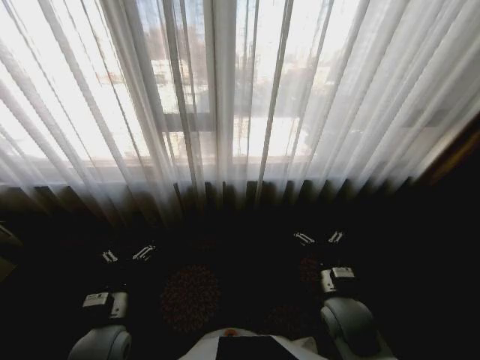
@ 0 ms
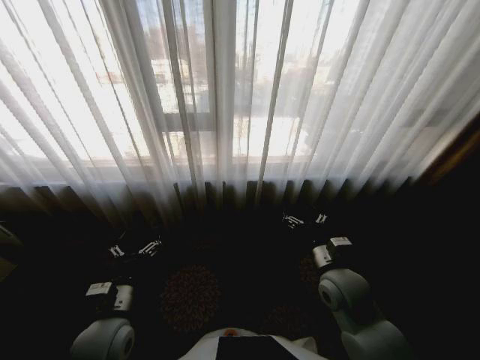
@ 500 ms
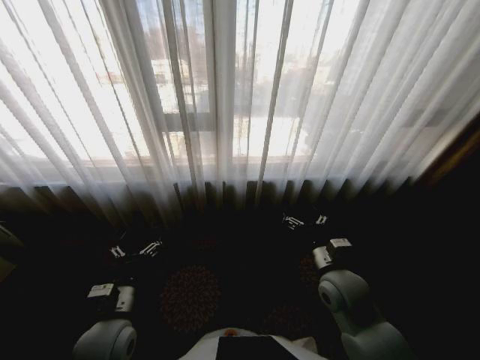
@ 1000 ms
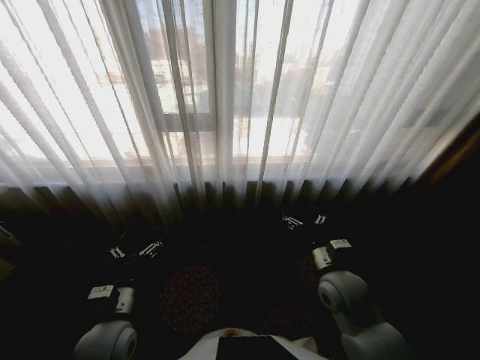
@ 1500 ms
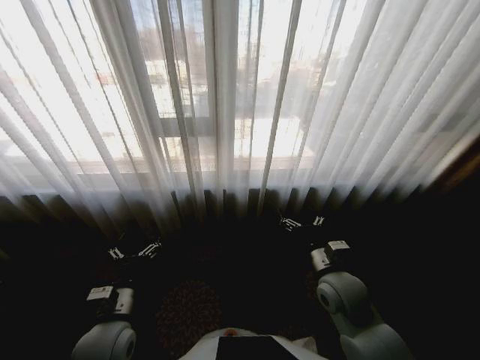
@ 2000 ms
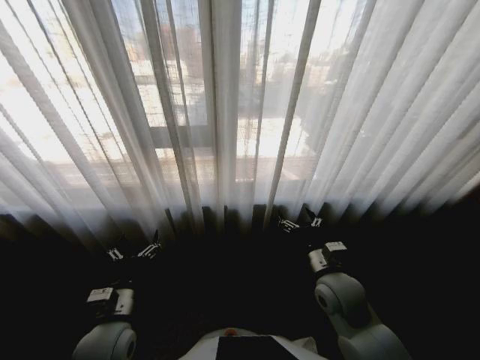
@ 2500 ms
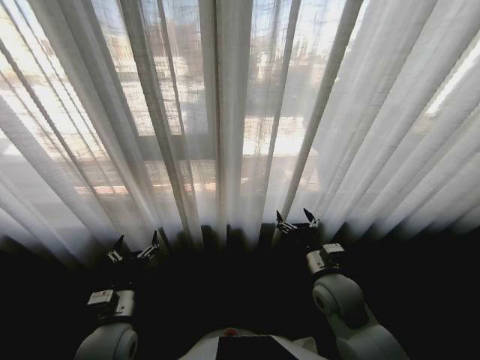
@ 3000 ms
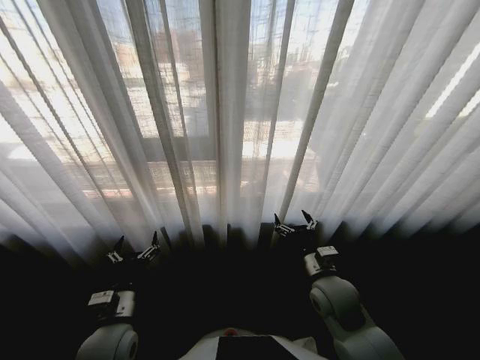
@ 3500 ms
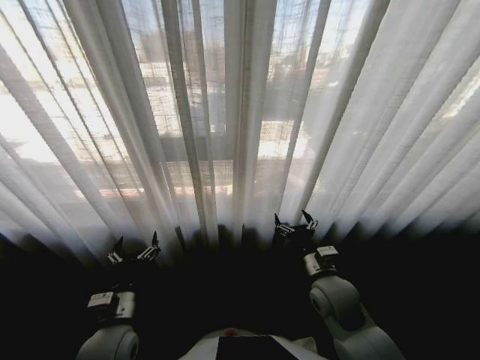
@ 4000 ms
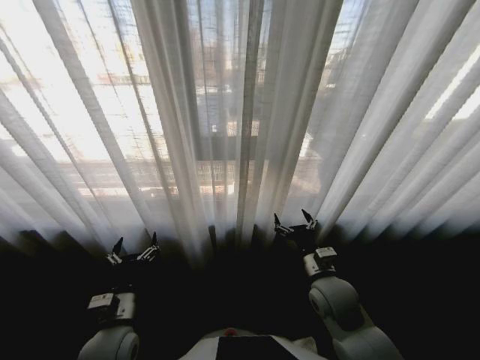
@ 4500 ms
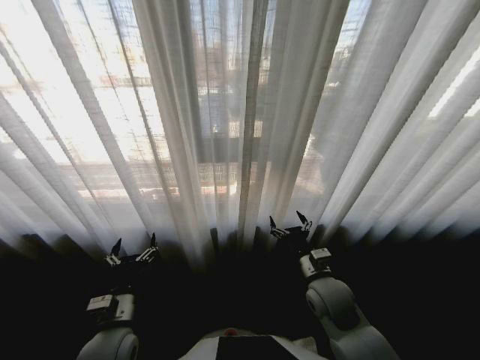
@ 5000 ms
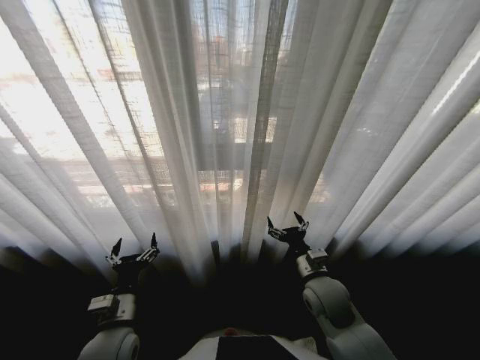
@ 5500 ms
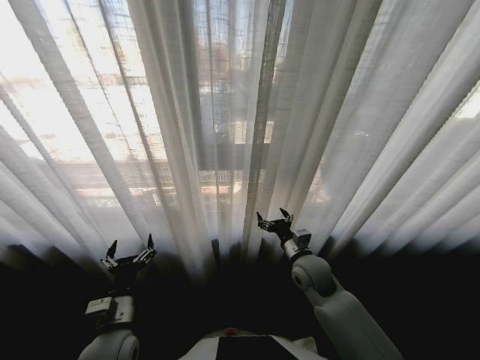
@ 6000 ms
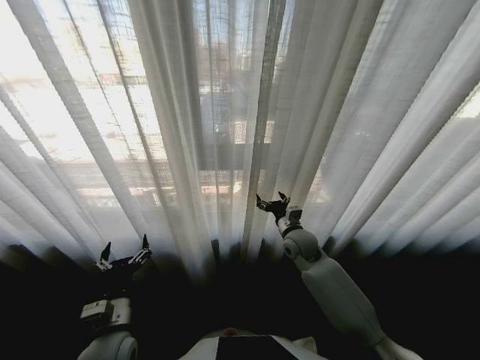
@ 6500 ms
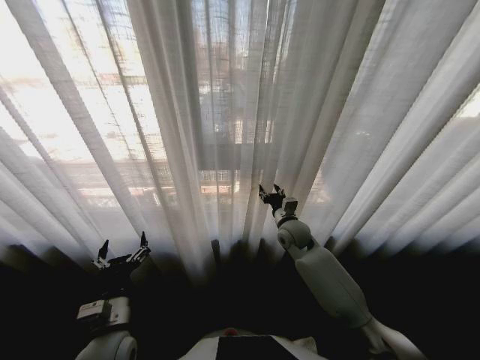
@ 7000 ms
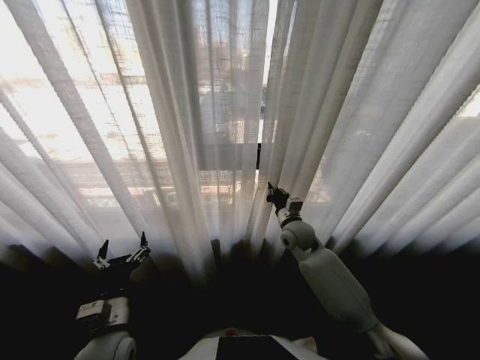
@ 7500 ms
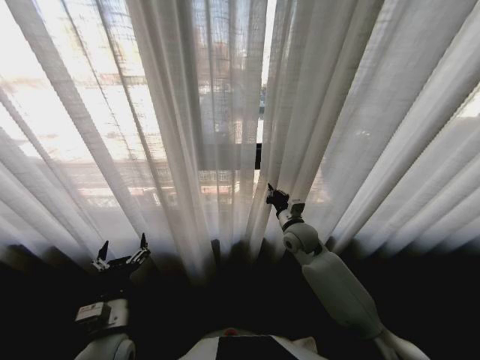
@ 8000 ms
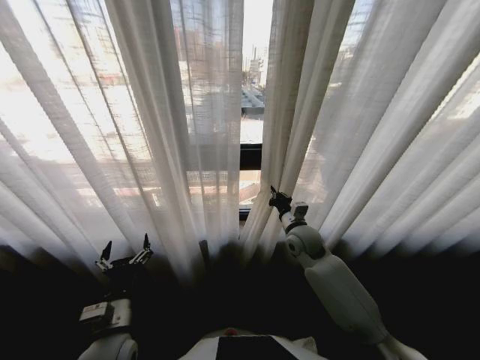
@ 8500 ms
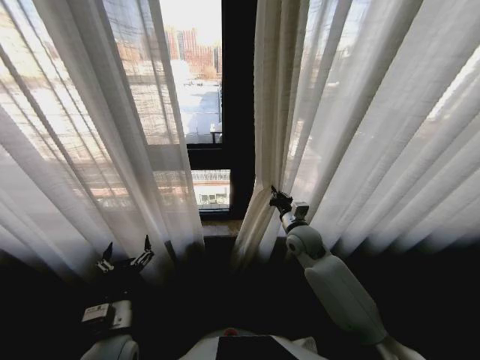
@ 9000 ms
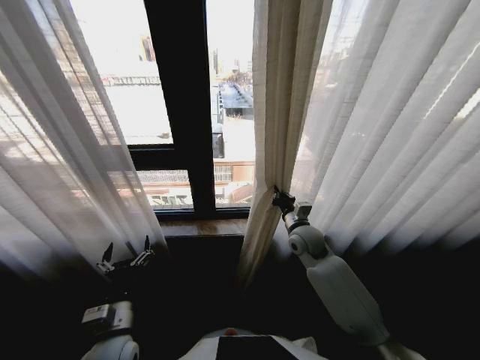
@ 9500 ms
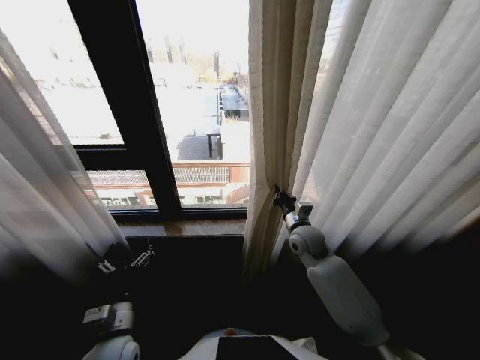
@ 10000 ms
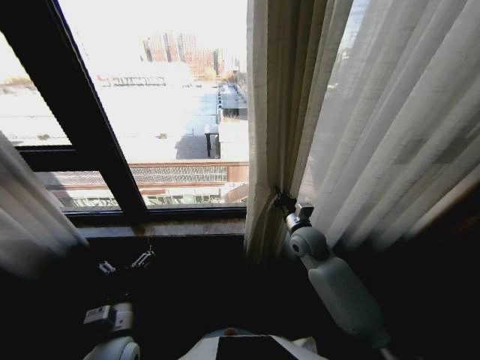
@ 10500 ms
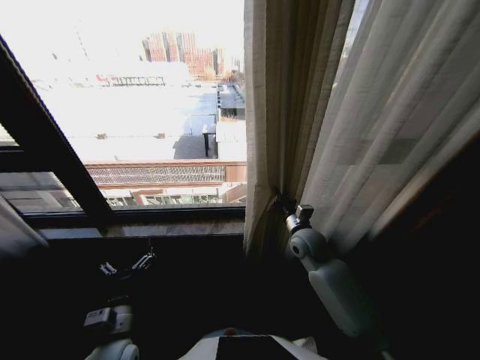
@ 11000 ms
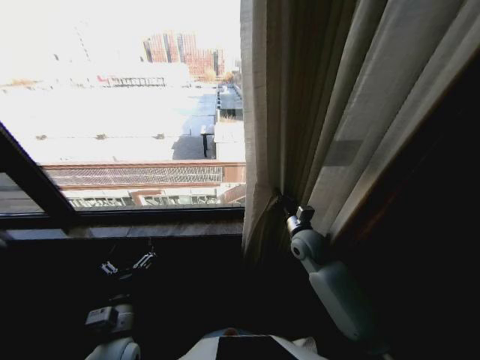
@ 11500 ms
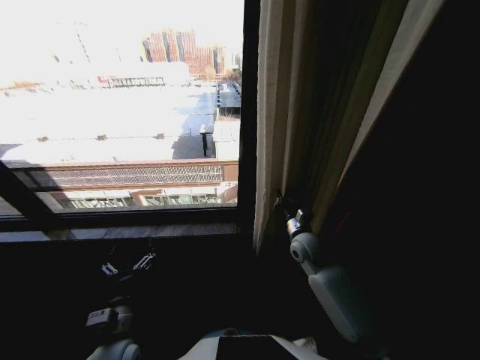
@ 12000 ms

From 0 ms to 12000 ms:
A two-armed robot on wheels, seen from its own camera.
Task of the whole recording: Open the curtains by pulling them apart, changing their state from closed to fully open.
From 4000 ms to 6000 ms: The right gripper shifts about 5 cm forward.
From 6000 ms to 8000 ms: The right gripper is displaced forward by some 10 cm, and closes.

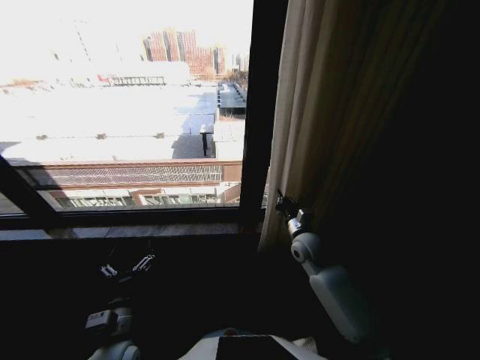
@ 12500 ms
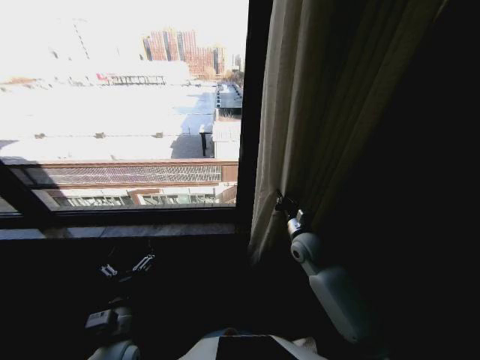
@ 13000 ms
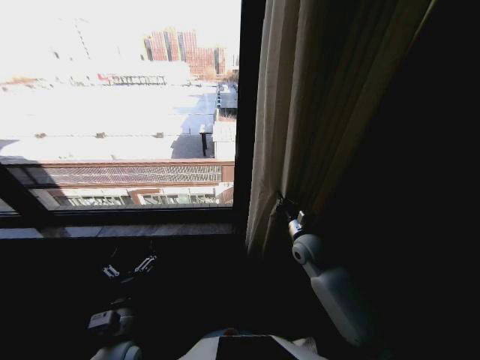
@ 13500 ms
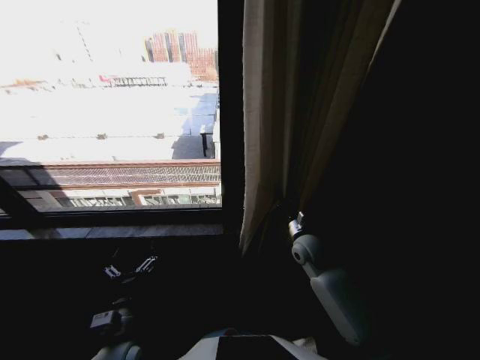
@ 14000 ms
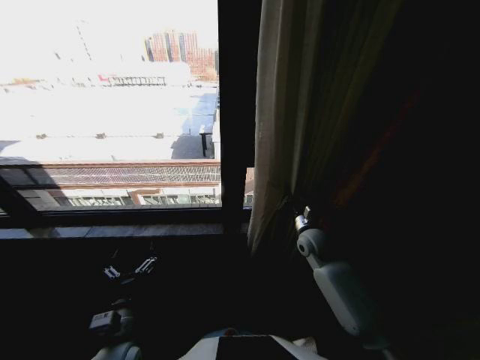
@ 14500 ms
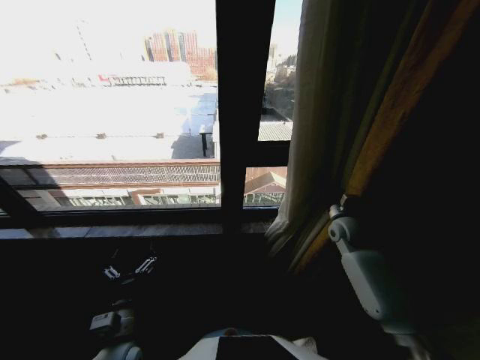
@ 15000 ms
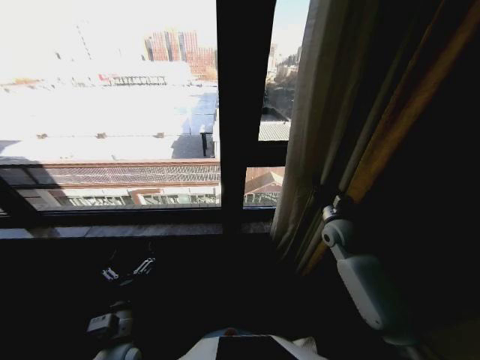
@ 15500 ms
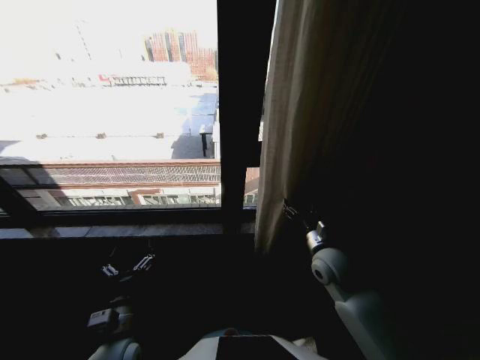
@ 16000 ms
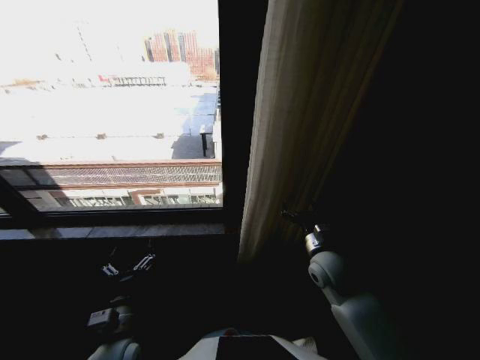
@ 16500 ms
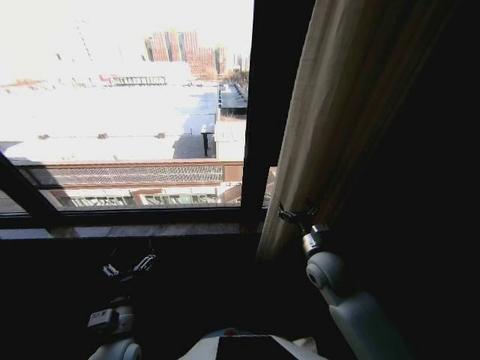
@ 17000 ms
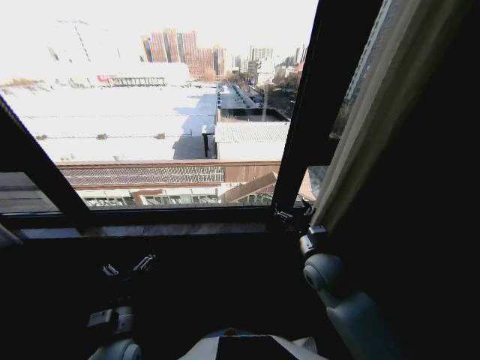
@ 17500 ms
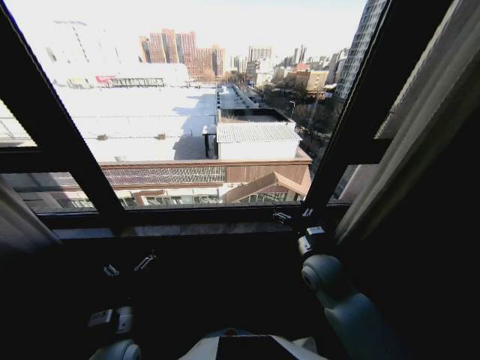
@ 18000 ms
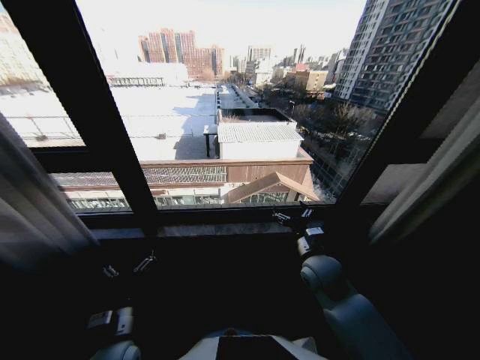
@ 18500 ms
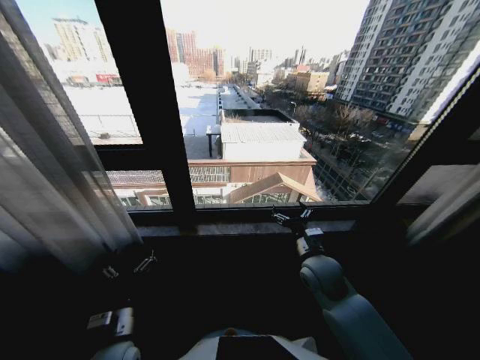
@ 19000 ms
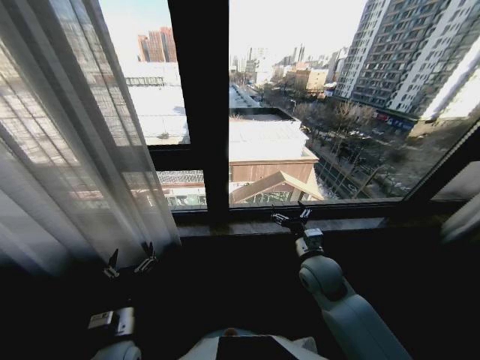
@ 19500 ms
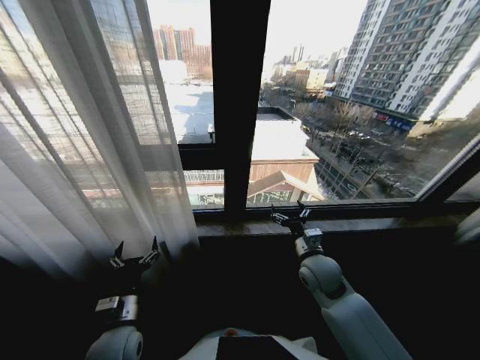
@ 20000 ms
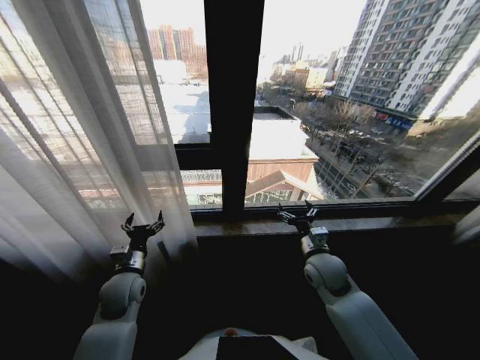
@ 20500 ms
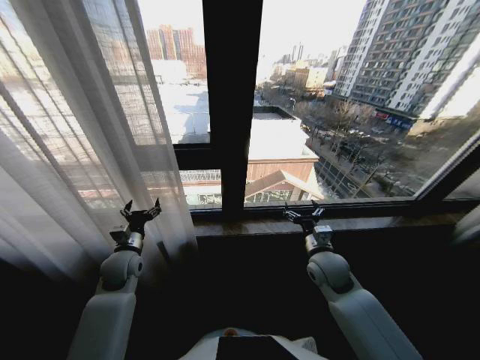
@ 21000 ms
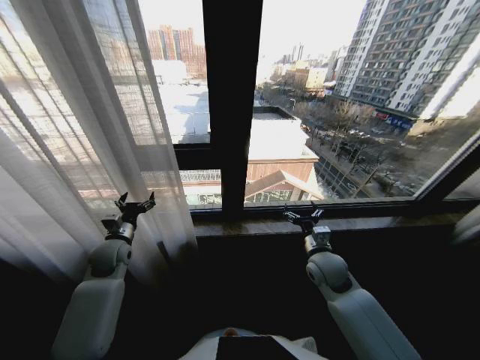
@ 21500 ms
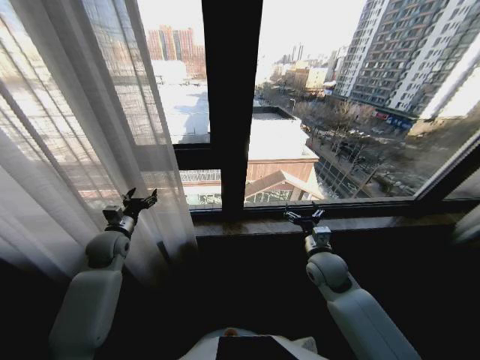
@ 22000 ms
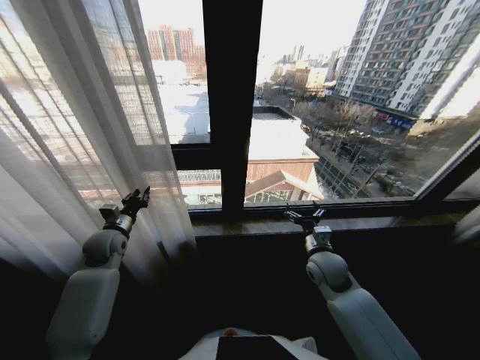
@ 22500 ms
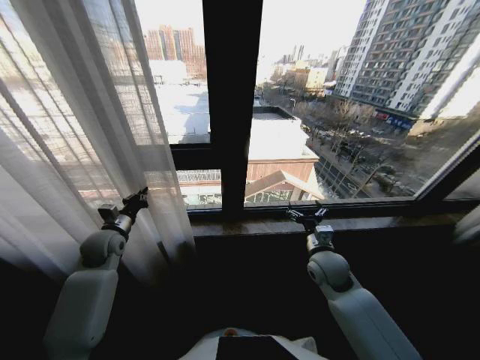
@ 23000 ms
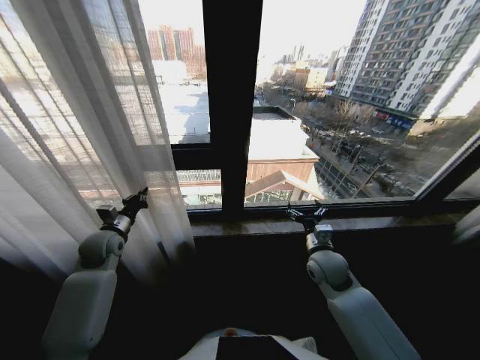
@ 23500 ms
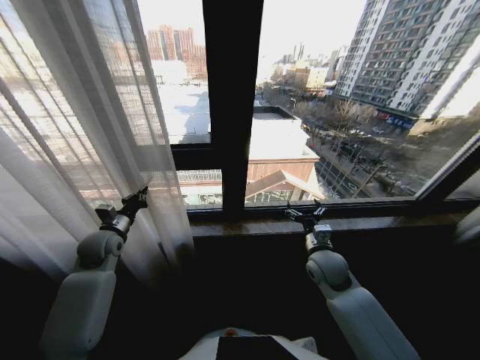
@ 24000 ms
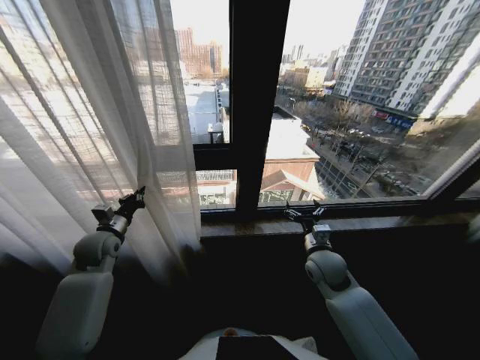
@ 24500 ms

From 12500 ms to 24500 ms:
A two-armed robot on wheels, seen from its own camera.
Task of the whole recording: Open the curtains by pulling them apart, changing their state from closed to fully open.
From 12500 ms to 14500 ms: The grippers stay close to where they were, moving slightly.
From 14500 ms to 16500 ms: The right gripper shifts roughly 10 cm backward, and opens.
From 18500 ms to 20500 ms: The left gripper goes some 15 cm forward.
From 20500 ms to 22500 ms: The left gripper shifts about 15 cm forward and to the left, and closes up.

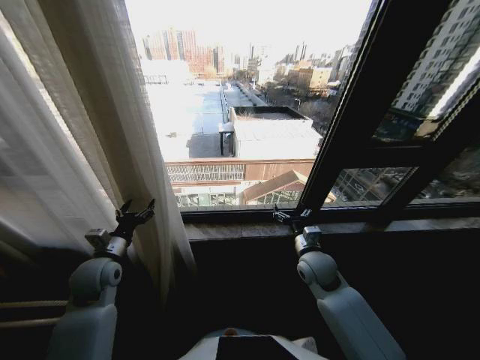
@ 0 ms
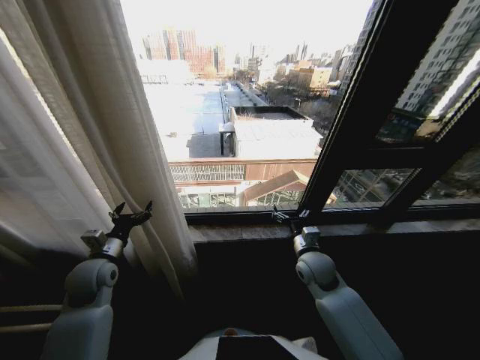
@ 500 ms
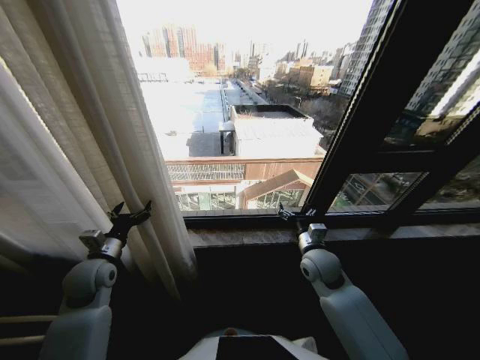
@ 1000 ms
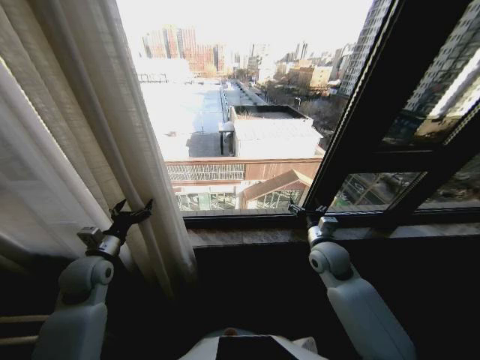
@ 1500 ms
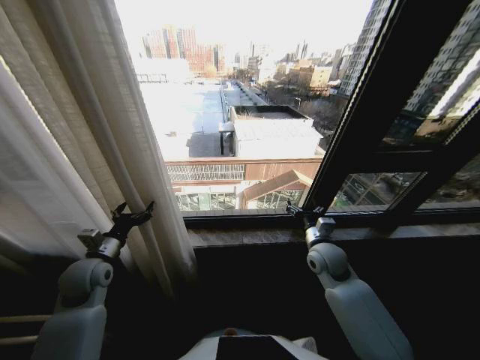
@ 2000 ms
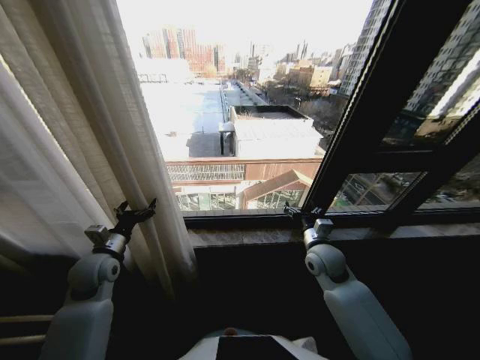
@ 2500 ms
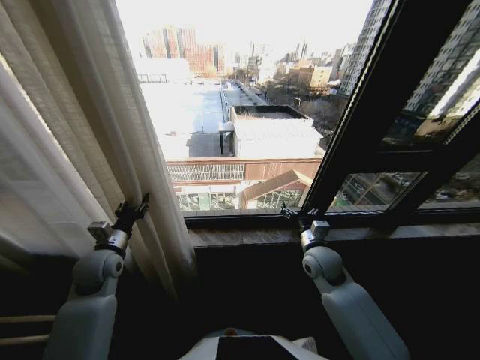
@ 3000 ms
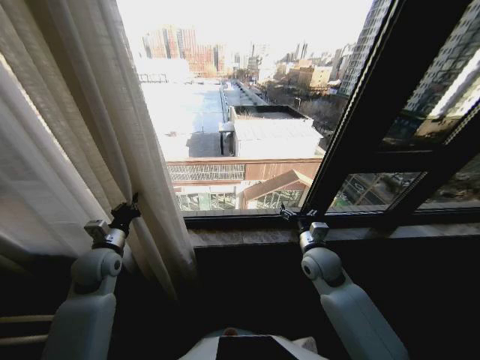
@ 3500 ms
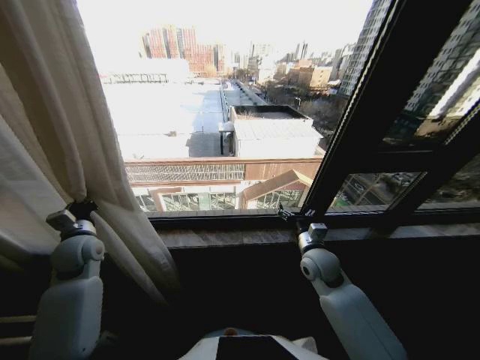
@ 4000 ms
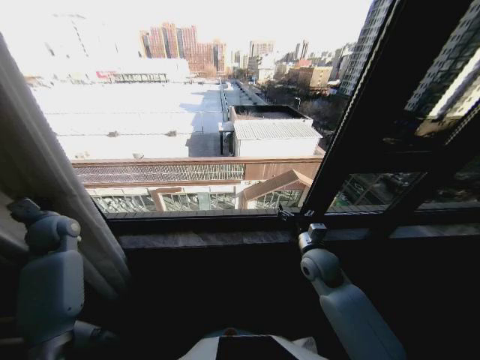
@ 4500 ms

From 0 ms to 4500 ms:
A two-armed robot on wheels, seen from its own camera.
Task of the whole recording: Open the curtains by pulling them apart, changing their state from closed to fully open.
From 2000 ms to 4500 ms: The left gripper travels to the left, forward and upward by about 15 cm, and closes its fingers.
